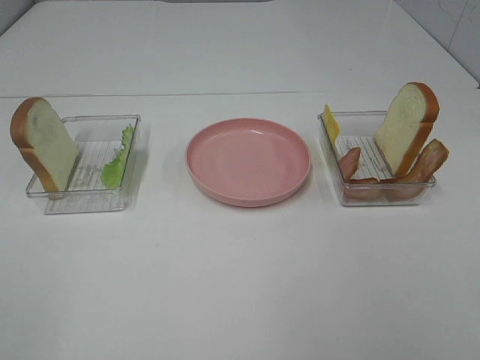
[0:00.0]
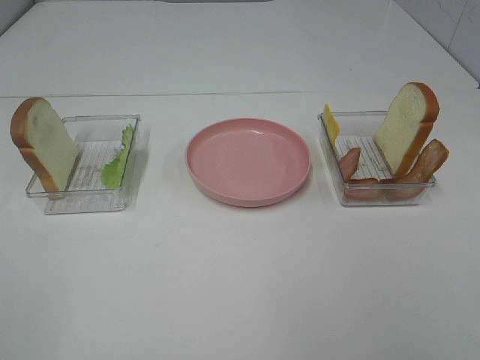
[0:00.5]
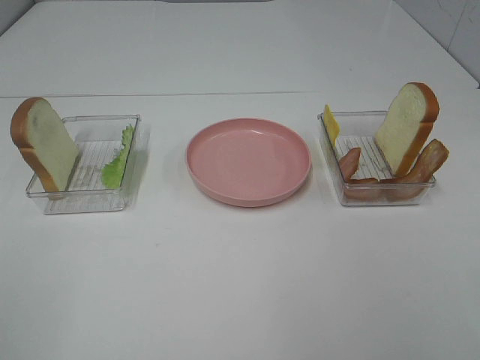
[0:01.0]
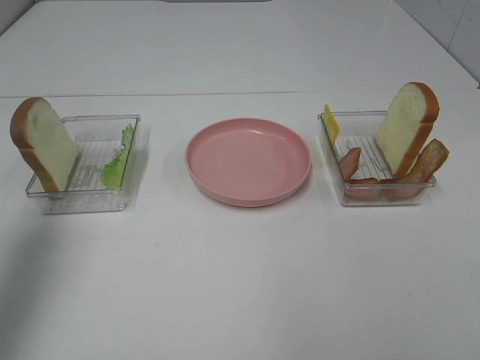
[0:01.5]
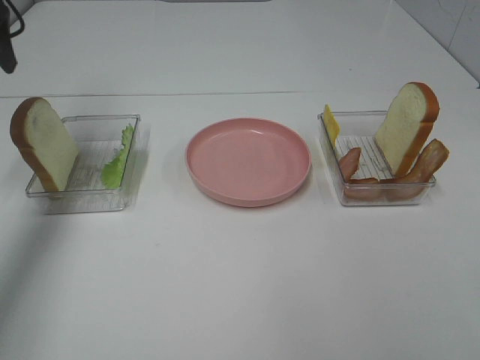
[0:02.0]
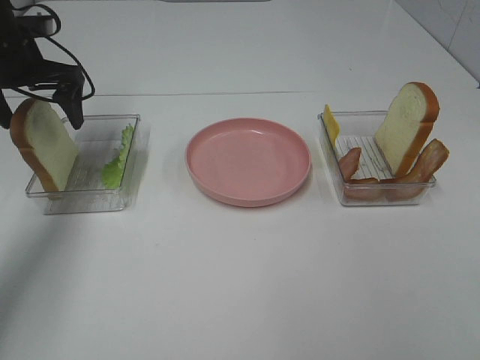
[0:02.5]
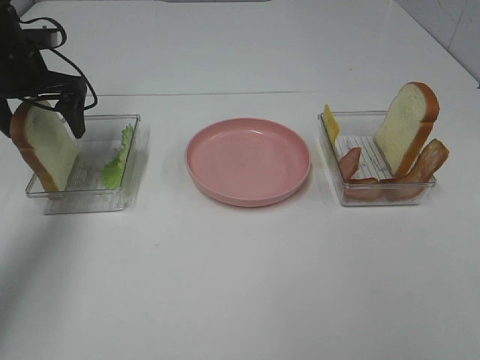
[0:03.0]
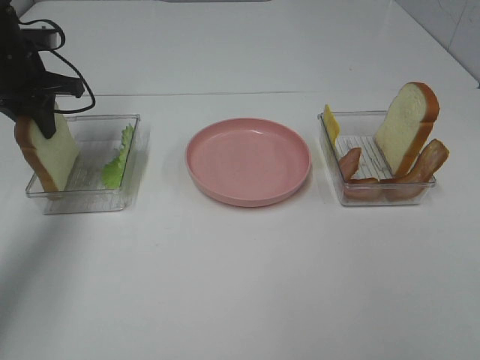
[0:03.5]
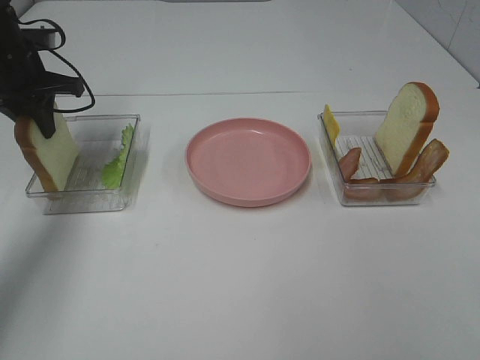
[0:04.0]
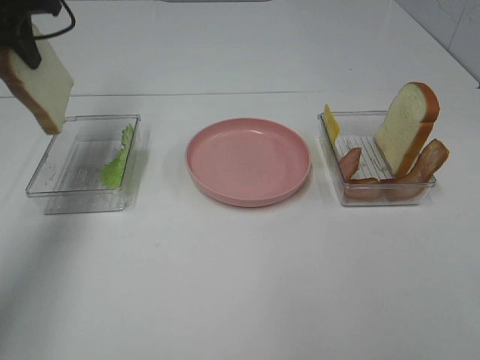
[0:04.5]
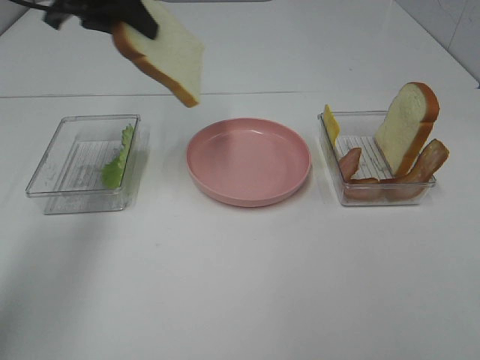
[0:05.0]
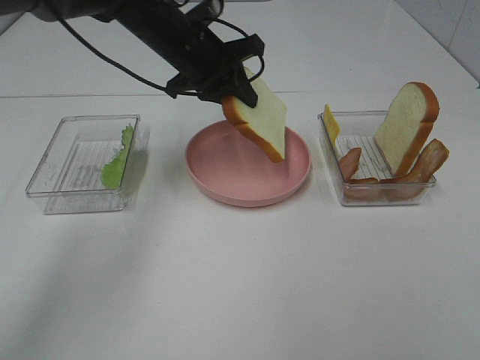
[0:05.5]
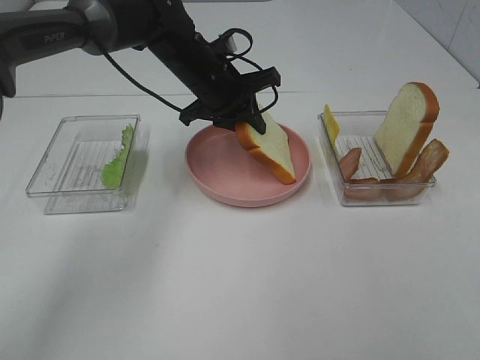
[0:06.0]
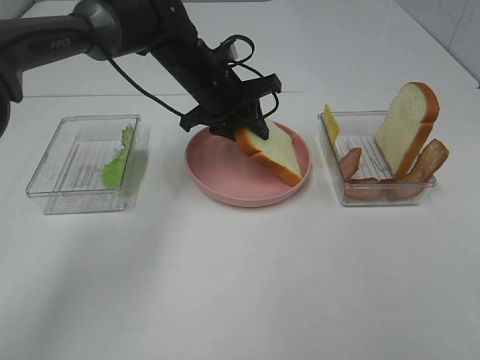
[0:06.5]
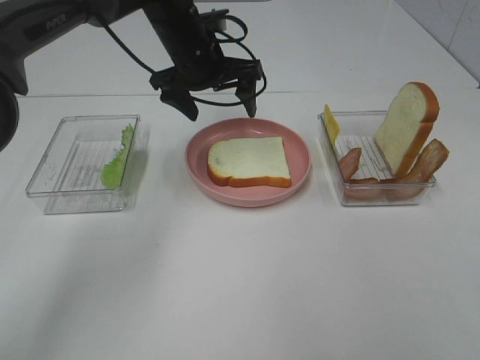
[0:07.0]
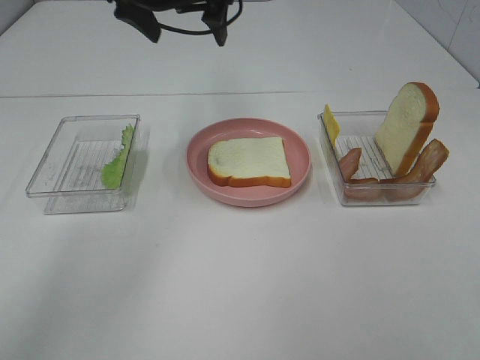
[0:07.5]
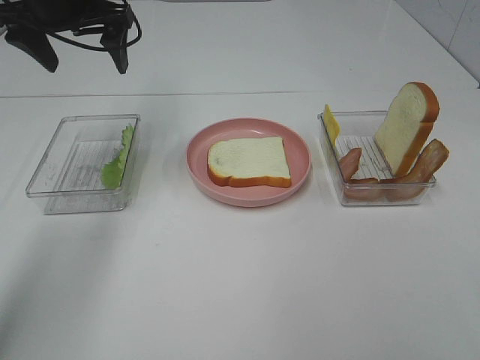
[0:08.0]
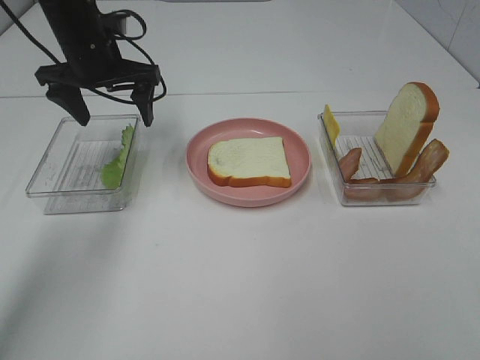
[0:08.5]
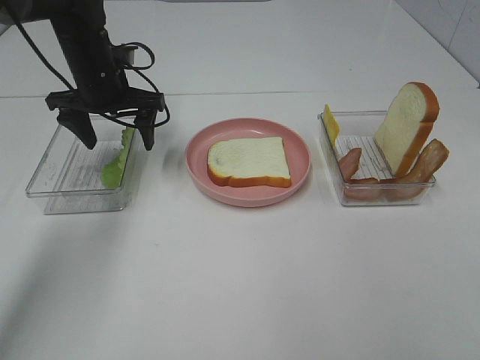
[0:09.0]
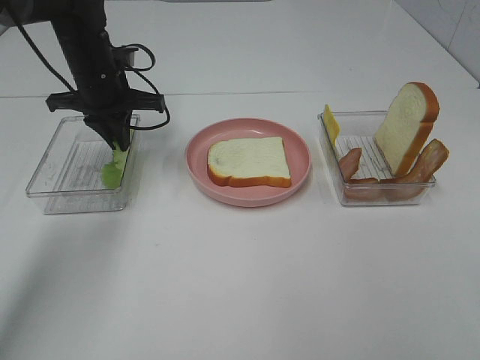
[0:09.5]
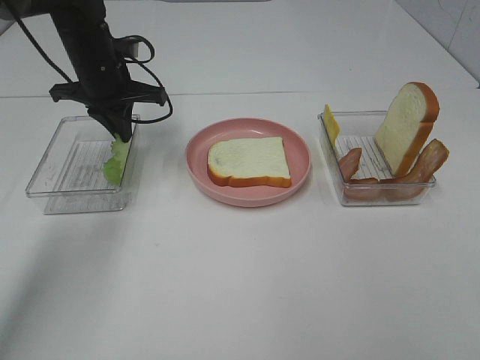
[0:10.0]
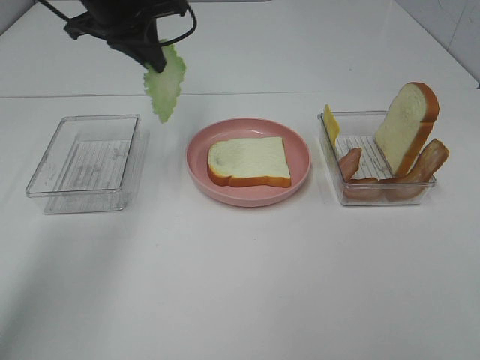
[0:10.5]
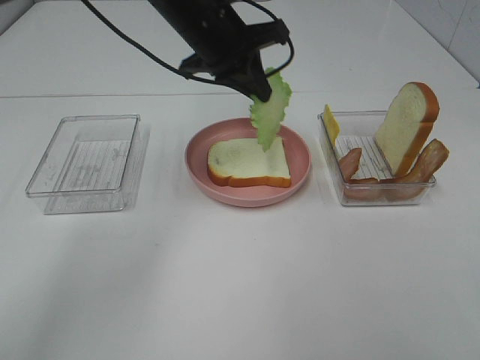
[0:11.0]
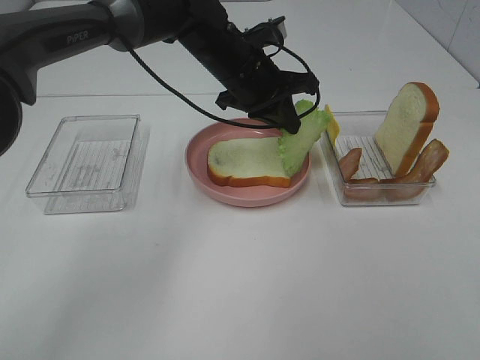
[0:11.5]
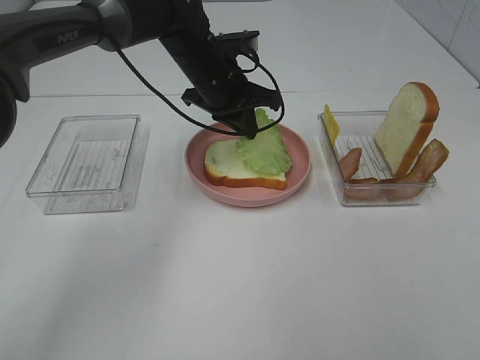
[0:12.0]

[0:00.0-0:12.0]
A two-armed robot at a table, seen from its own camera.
Task of the whole recording: Make sandwiches.
Step, 0:00.0 to 0:03.5: Left hand:grab the bread slice.
Step, 0:04.0 to 0:06.5: Left hand:place the bread slice on the plate.
Step, 0:07.0 to 0:10.0: Left hand:grab the lettuce slice.
0:00.0 to 0:02.0: The left gripper moves forward, about 40 cm.
0:02.0 to 0:04.0: The left gripper is displaced downward by roughly 10 cm, and closes.
0:04.0 to 0:06.0: The left gripper is displaced to the right by roughly 25 cm.
0:06.0 to 0:08.0: The left gripper is displaced to the left and upward by approximately 20 cm, and opens its fingers.
0:08.0 to 0:10.0: The left gripper is displaced downward by roughly 10 cm, and closes its fingers.
0:10.0 to 0:12.0: The left gripper is displaced to the right by approximately 15 cm.

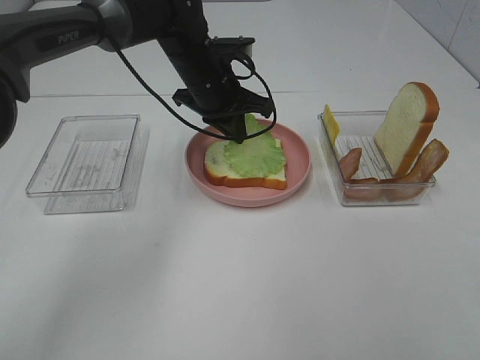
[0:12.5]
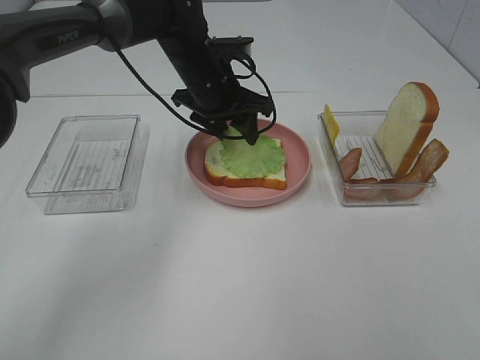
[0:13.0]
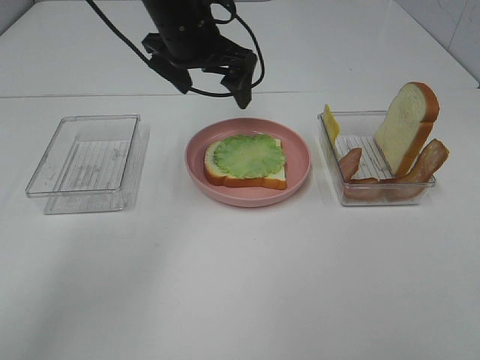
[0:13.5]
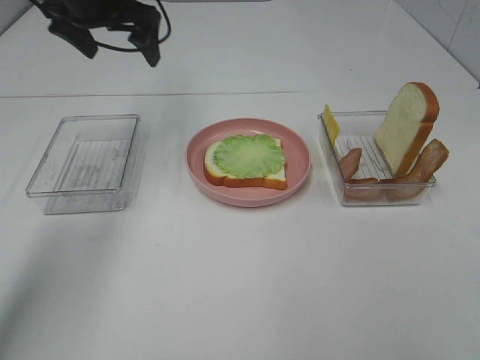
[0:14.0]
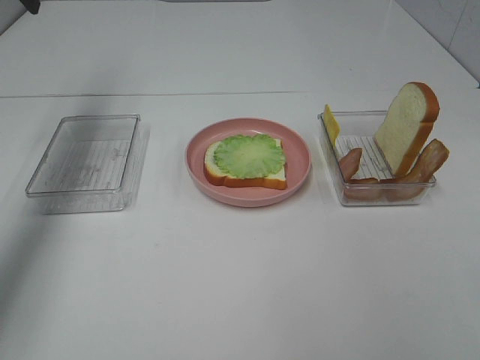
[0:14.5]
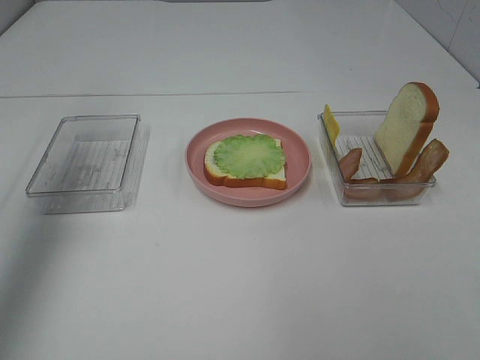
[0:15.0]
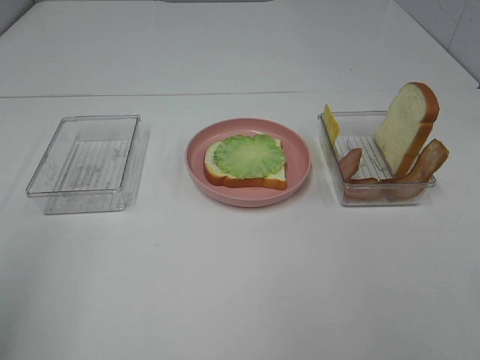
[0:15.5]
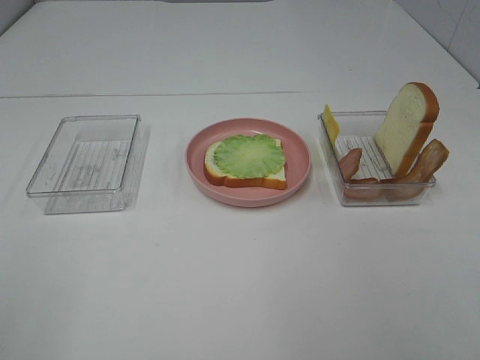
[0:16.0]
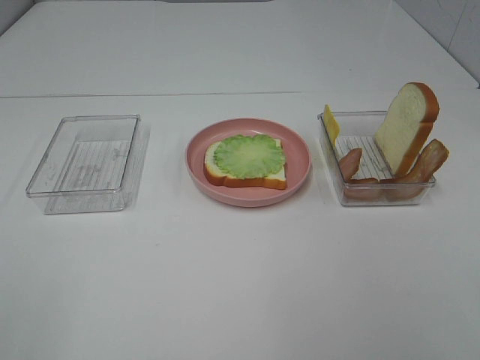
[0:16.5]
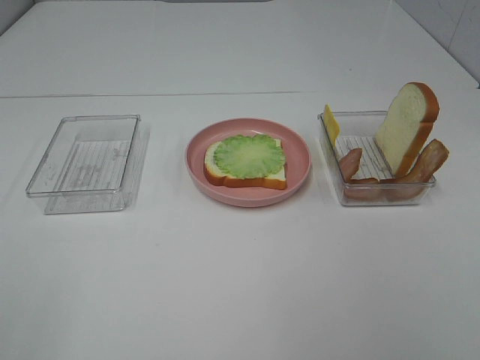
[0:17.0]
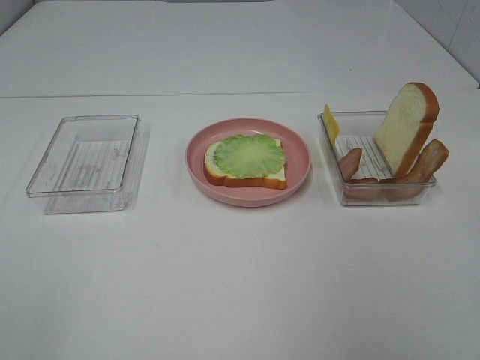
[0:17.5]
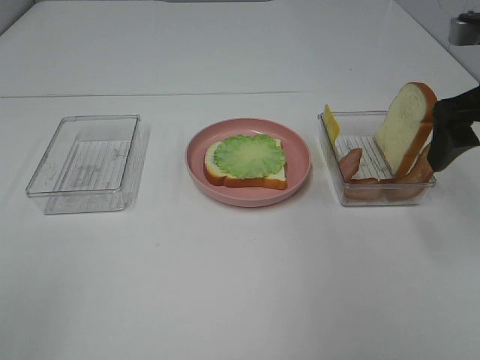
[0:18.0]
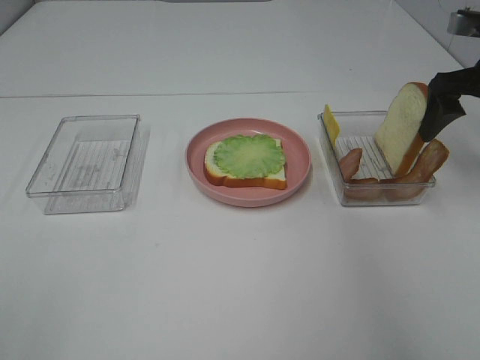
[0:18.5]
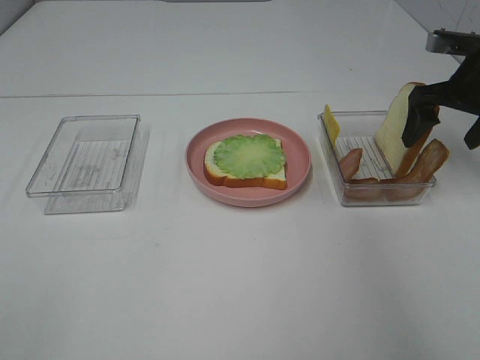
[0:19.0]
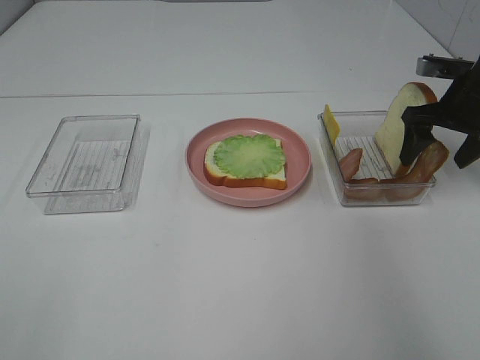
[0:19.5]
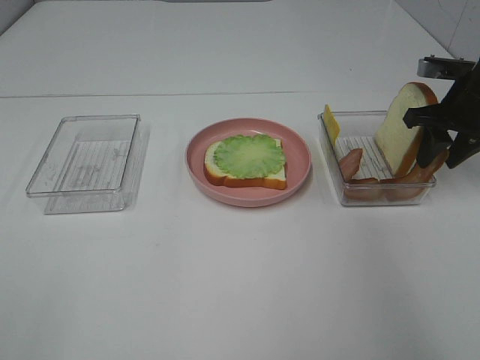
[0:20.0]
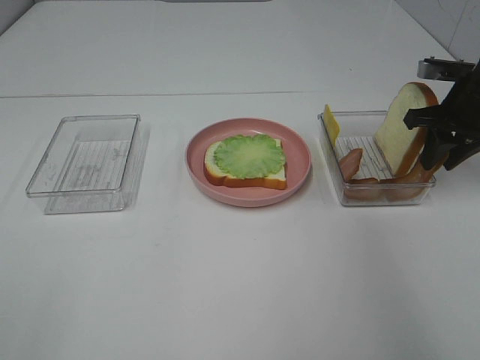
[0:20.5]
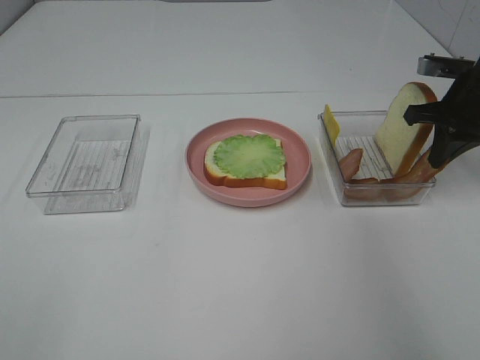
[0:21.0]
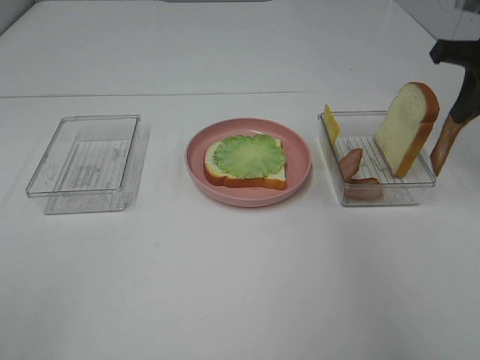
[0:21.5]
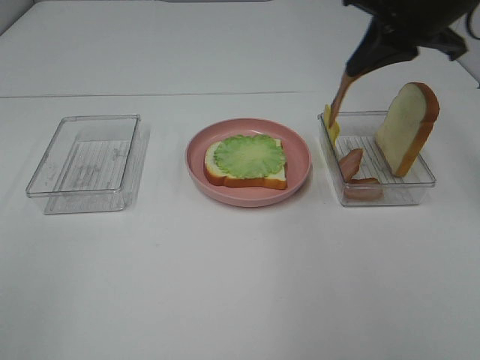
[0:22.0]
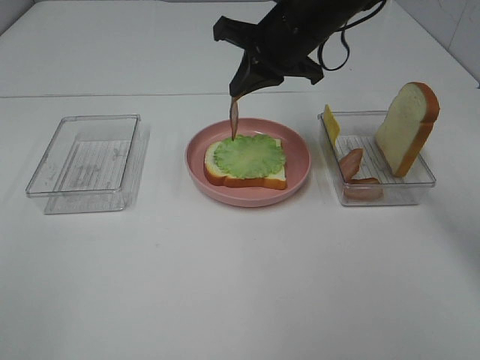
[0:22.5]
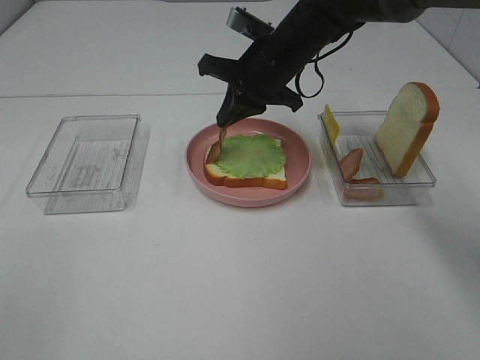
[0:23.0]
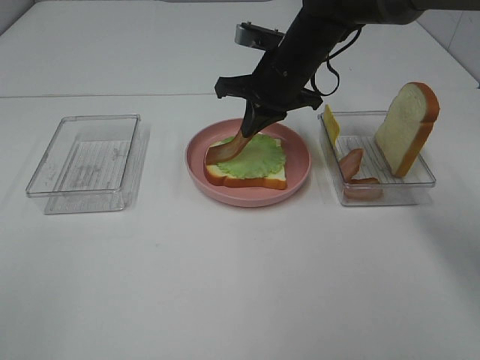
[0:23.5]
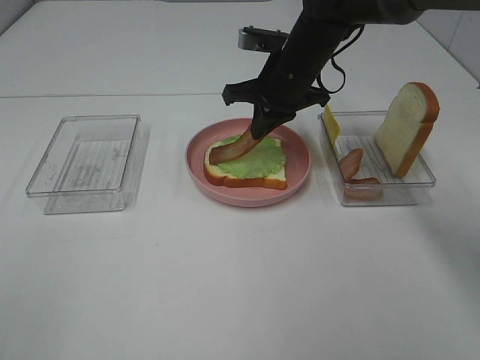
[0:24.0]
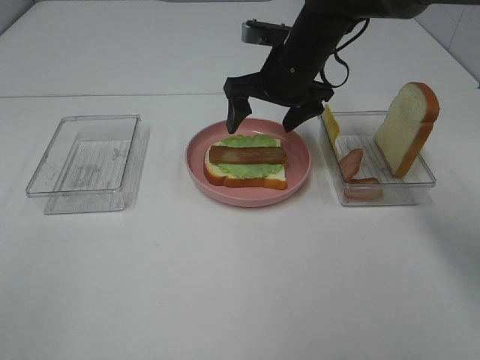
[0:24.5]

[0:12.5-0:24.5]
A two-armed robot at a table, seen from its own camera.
Task of the whole recording: Make sandwiches.
Step, 0:14.0 to 0:21.0: Right hand:grab the bacon.
Step, 0:21.5 to 0:24.5: Right hand:place bacon on lettuce slice.
0:12.5 to 0:14.5: The left gripper moves to the left and upward, some 35 cm, and opens up.
0:14.5 to 0:16.5: The left gripper travels backward by about 50 cm.
0:16.5 to 0:18.5: The right gripper moves forward, approximately 35 cm.
0:18.5 to 0:20.5: The right gripper shifts approximately 5 cm downward, and closes up.
0:20.5 to 0:22.5: The right gripper shifts some 25 cm to the left.
0:22.5 to 0:24.5: The right gripper changes place by approximately 5 cm, and opens up.

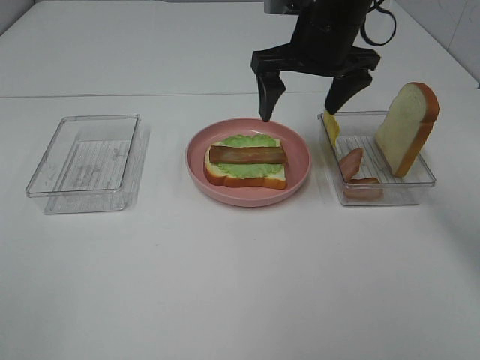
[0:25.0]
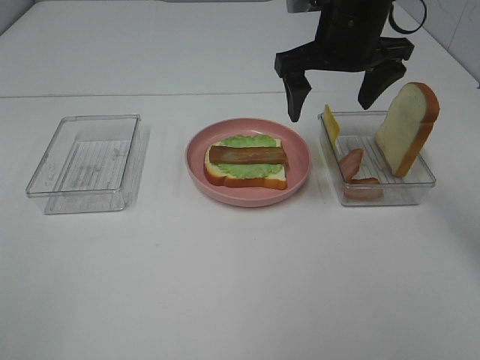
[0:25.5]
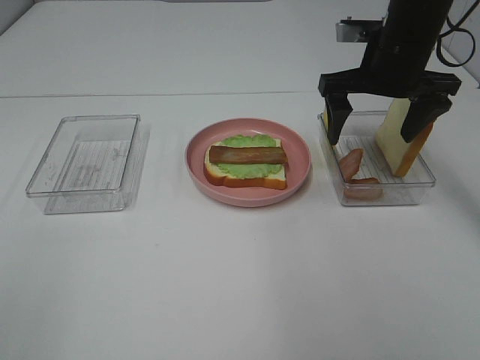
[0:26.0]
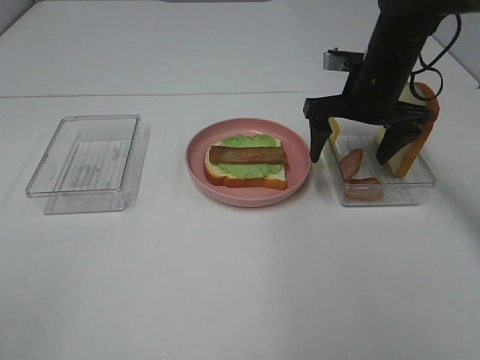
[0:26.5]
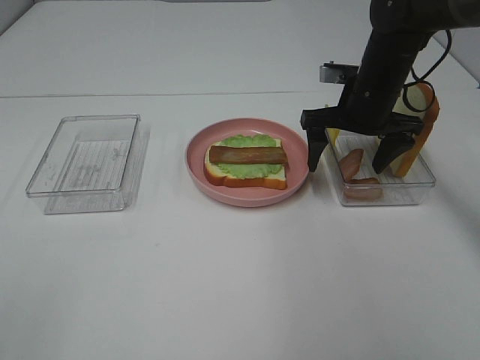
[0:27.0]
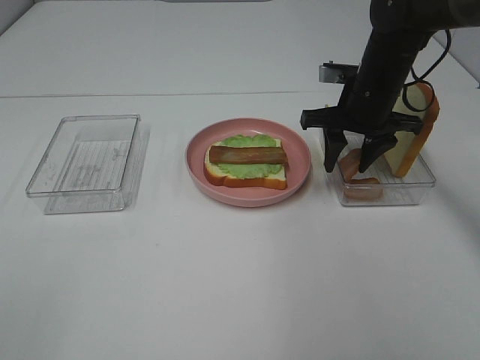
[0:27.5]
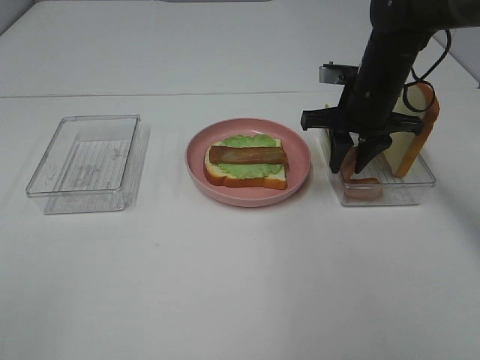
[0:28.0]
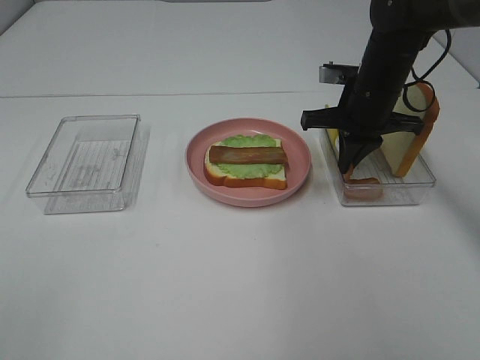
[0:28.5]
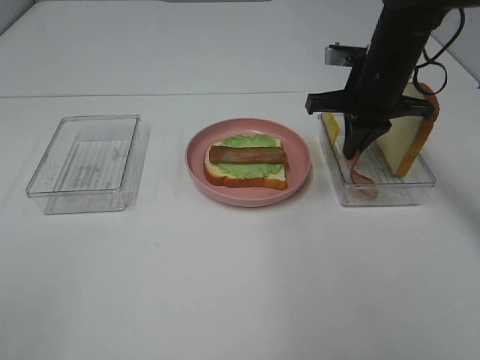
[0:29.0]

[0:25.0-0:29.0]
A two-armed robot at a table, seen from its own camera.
Task of the whole recording: Make sandwiches.
Step, 0:25.0 to 0:28.5: Right hand:grab the bacon.
0:25.0 to 0:27.0: The right gripper goes about 10 cm downward and to the right.
0:27.0 to 0:29.0: The right gripper closes.
